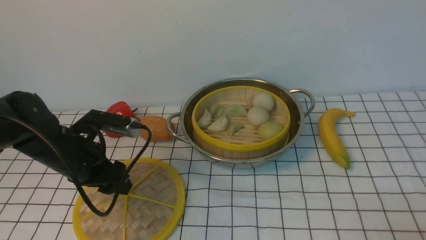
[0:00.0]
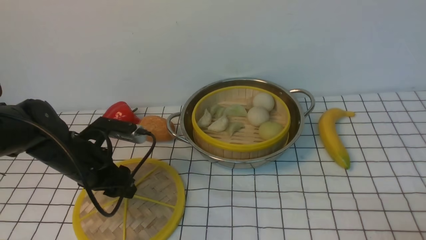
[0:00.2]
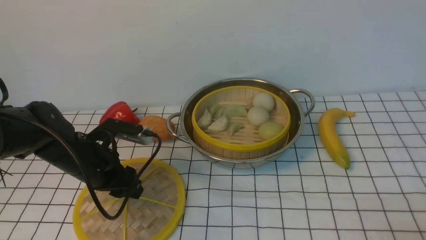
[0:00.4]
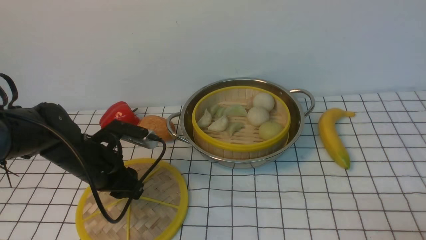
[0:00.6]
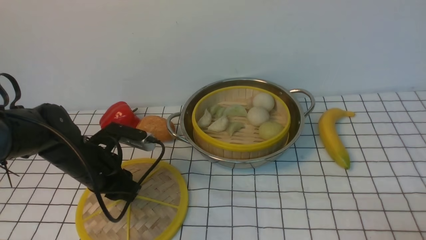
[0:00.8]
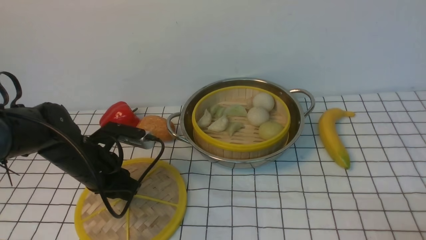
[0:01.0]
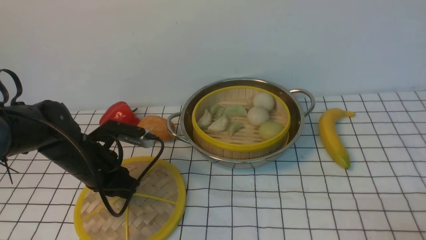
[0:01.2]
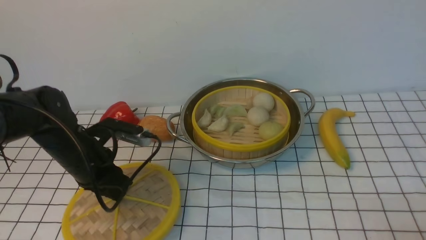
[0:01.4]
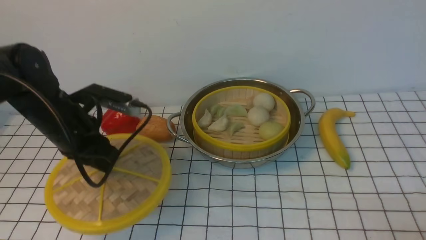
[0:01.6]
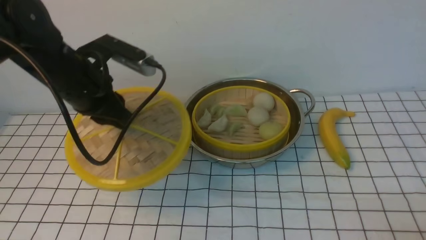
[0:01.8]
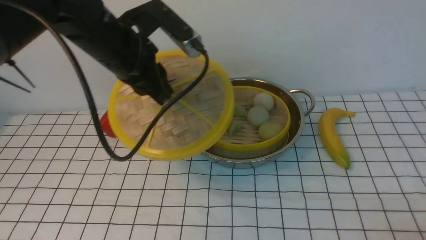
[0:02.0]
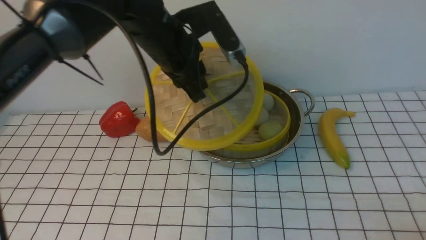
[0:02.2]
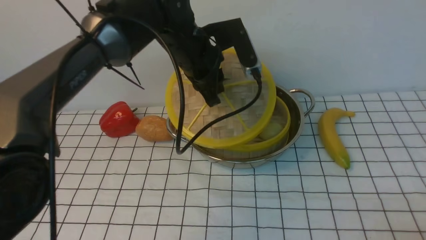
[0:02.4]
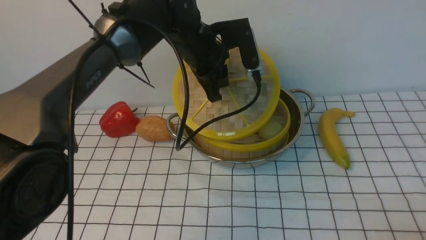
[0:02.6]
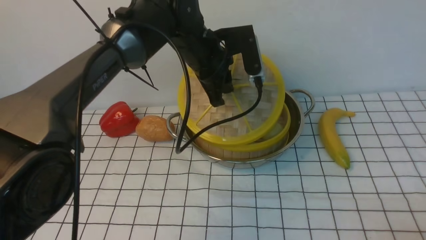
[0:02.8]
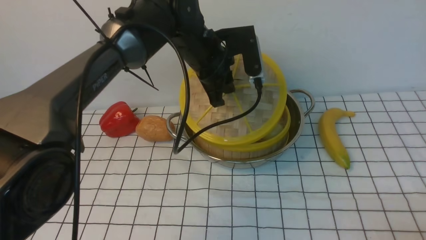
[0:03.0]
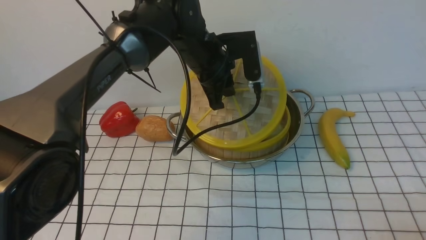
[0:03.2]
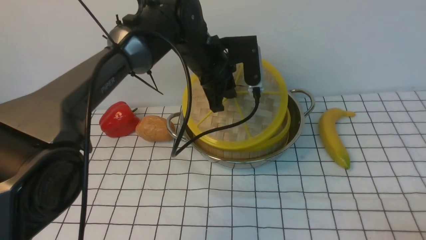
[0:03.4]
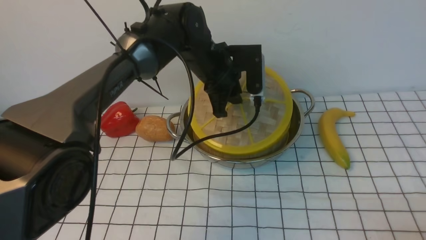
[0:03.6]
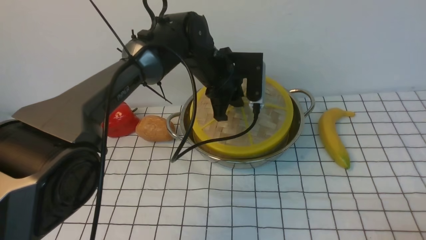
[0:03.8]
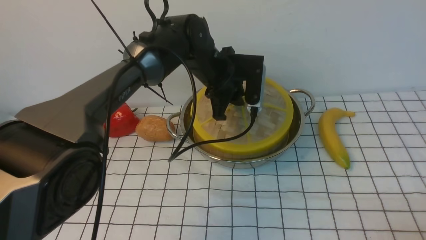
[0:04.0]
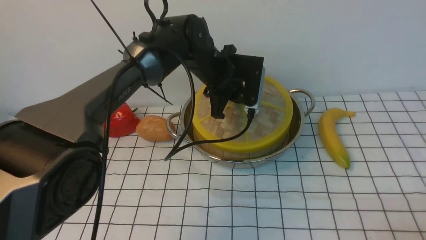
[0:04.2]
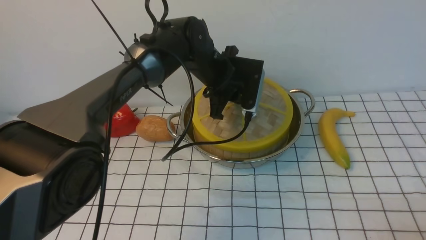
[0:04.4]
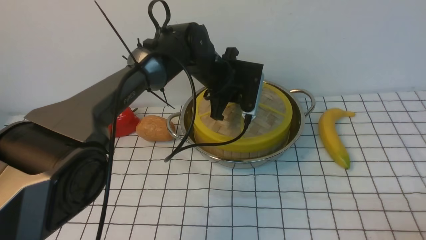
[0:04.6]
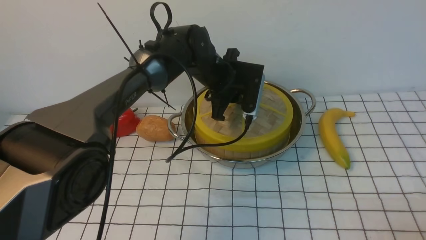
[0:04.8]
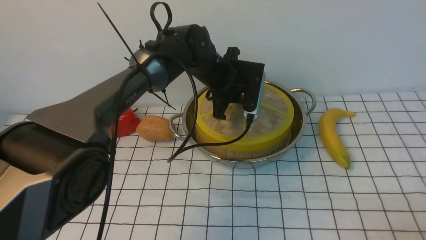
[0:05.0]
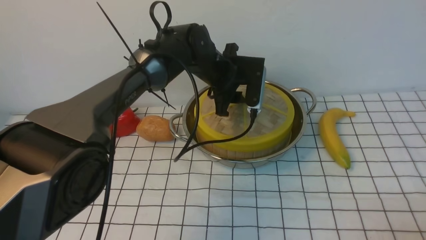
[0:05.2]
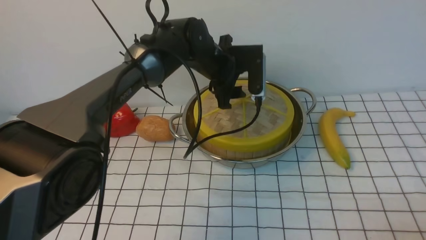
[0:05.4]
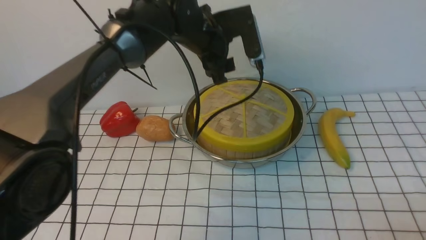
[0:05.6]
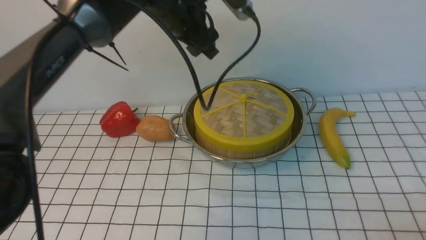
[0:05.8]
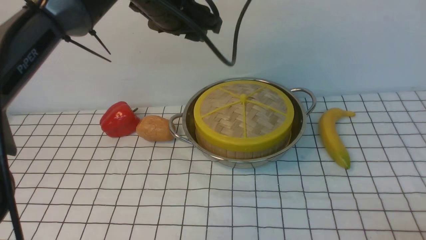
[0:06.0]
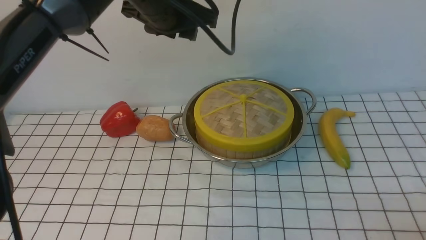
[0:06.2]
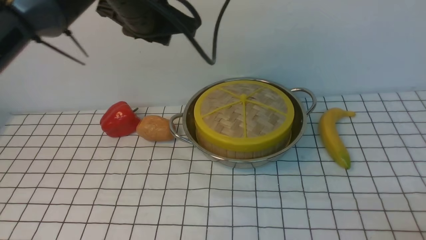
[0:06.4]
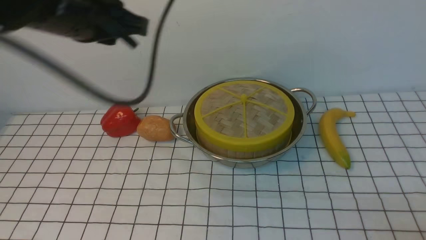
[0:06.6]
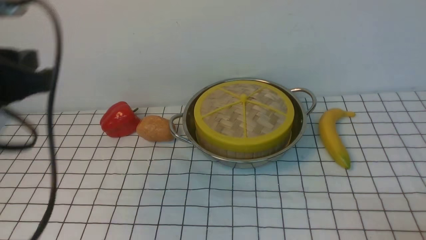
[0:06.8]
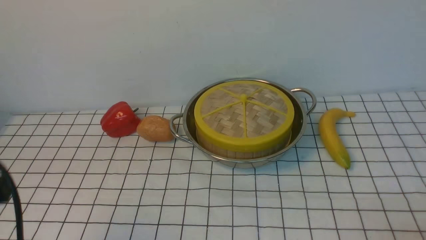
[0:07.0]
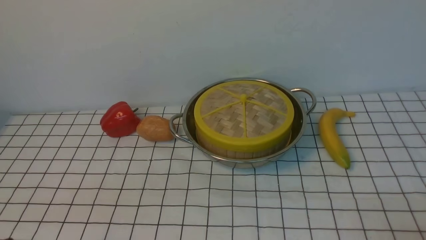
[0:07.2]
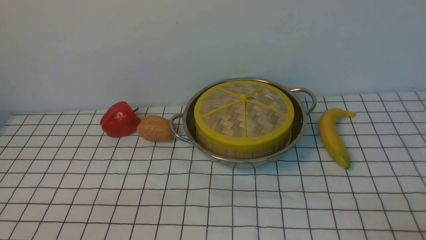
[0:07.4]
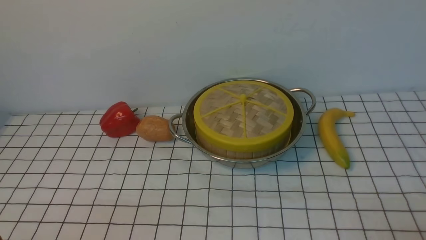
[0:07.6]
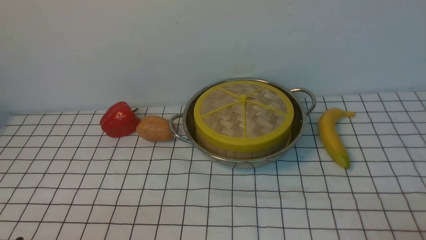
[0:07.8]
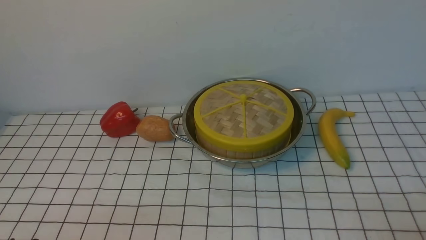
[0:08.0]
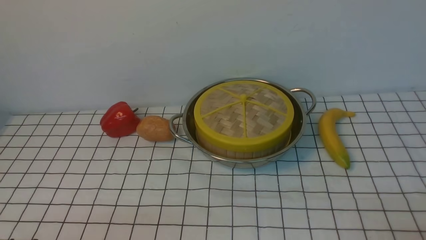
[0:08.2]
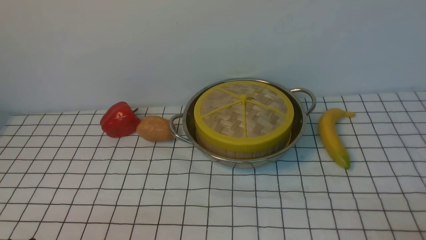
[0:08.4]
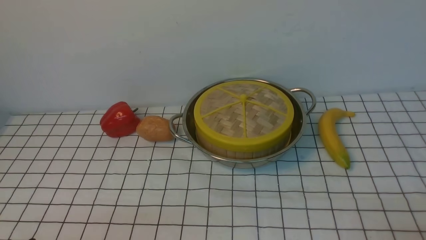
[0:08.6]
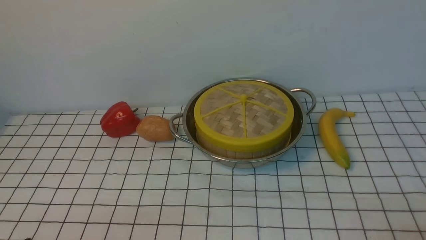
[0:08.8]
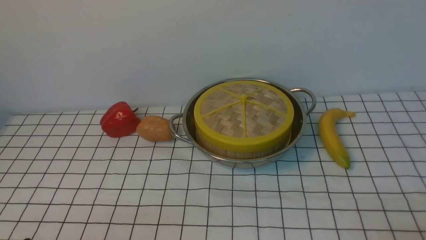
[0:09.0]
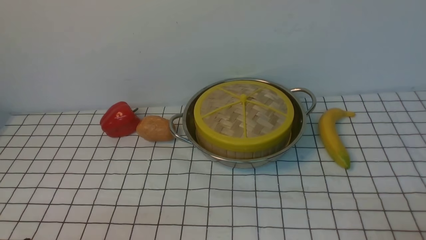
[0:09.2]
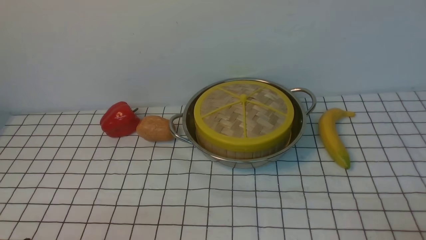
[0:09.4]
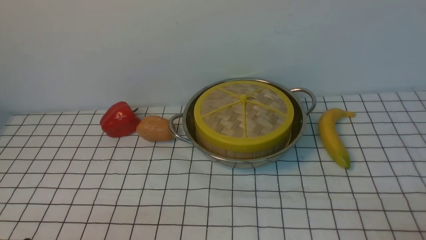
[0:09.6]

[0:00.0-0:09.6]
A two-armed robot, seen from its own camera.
Task of the whole recording: place the steamer in the pot on the white tablecloth, and put the lid on the steamer.
Step, 0:01.6 to 0:05.6: use the left arm to place the steamer lid on the steamer.
0:00.0 to 0:01.6: The left gripper is displaced upward by some 5 cm, and closes its fingers.
0:01.6 to 0:03.2: The left gripper travels to the right and forward by approximately 20 cm.
0:03.2 to 0:04.8: The left gripper travels downward by approximately 5 cm.
0:04.8 to 0:06.4: The left gripper is displaced upward, to the left and backward by roughly 25 cm, and opens and closes again.
0:06.4 to 0:08.0: The left gripper goes about 40 cm backward, downward and to the left.

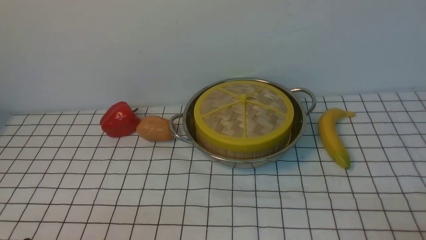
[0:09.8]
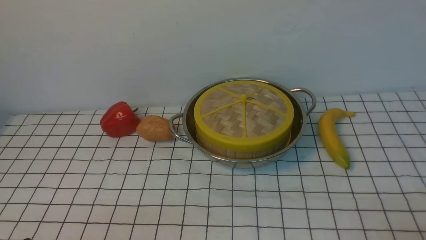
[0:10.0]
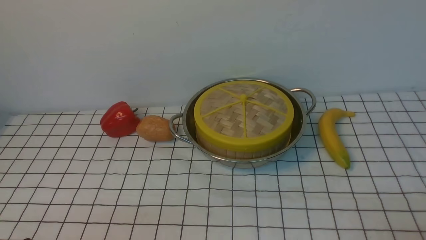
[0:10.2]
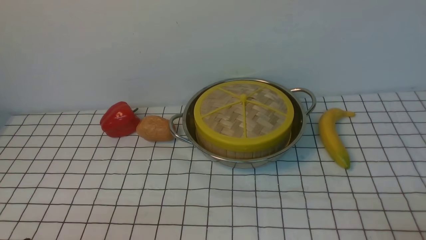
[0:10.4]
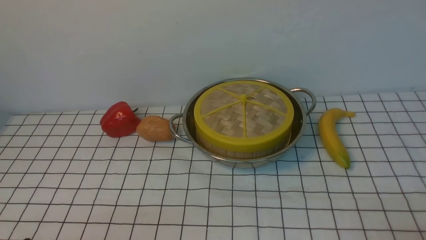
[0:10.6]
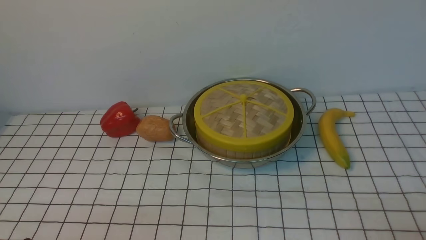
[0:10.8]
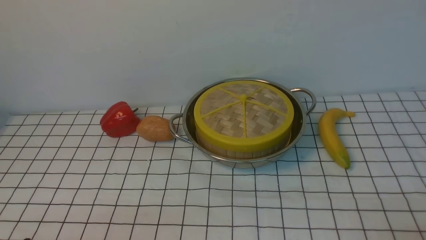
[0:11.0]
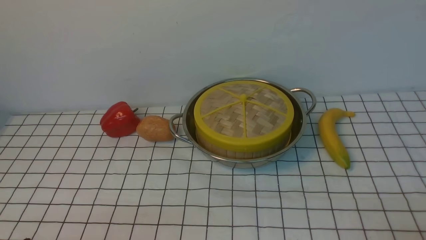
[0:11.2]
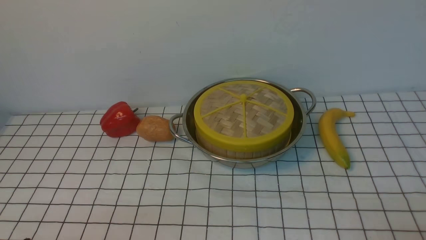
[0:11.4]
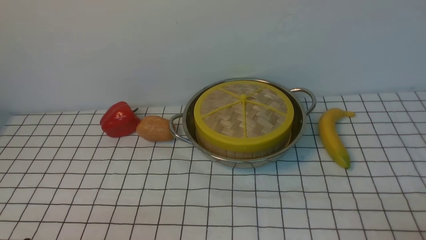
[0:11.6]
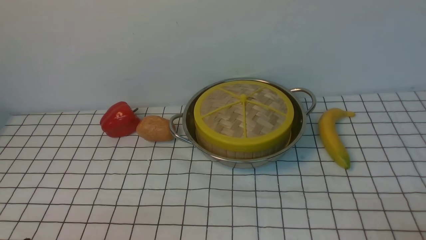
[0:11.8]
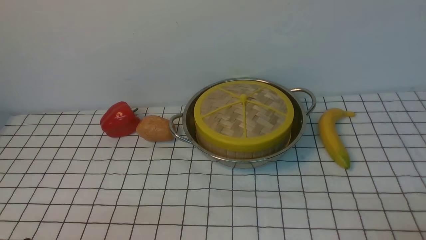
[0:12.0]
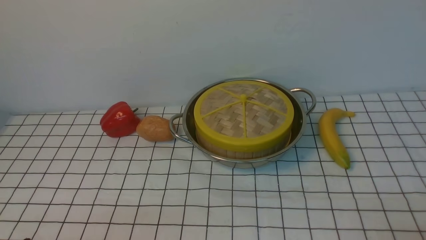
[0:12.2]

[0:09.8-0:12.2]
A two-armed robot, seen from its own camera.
Task of the whole recording: place the steamer in the pot on the white tablecloth, and put the lid on the steamer.
0:09.8 to 0:12.2: Both grippers stay put.

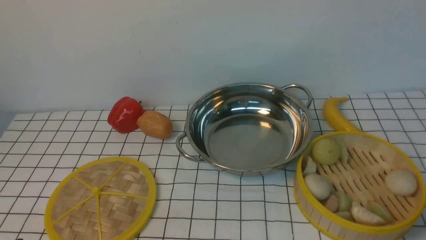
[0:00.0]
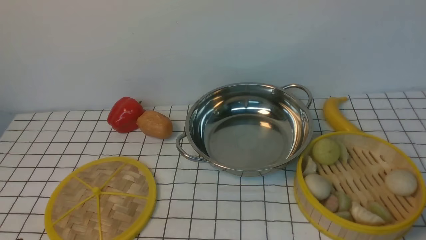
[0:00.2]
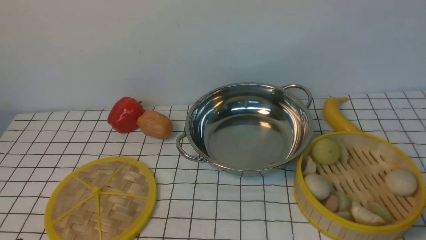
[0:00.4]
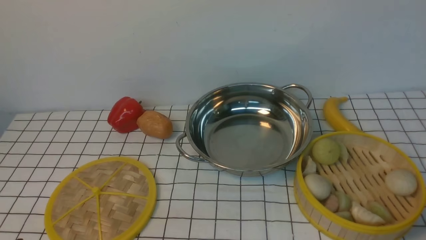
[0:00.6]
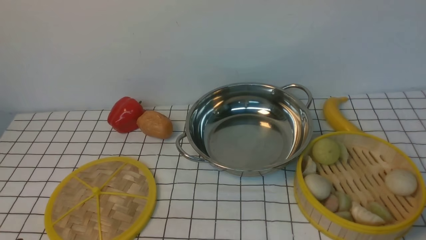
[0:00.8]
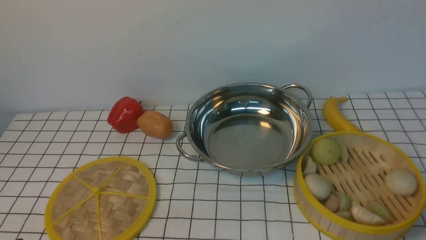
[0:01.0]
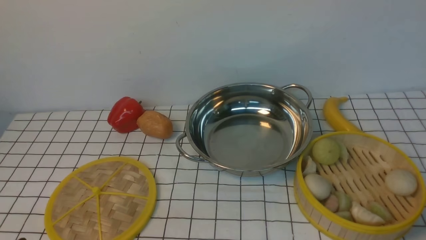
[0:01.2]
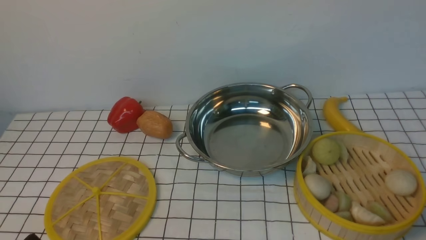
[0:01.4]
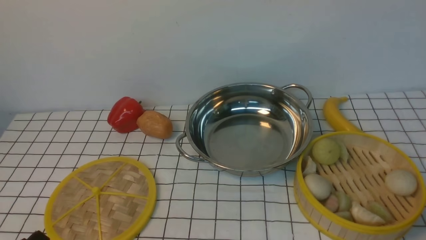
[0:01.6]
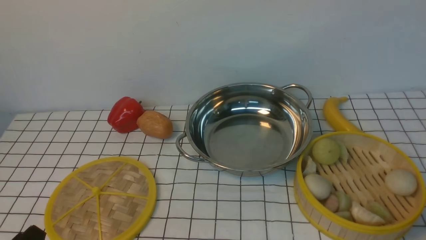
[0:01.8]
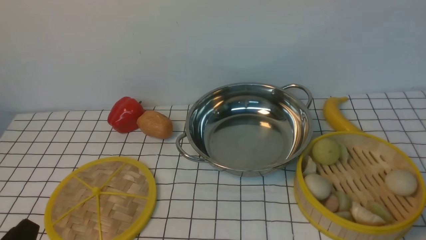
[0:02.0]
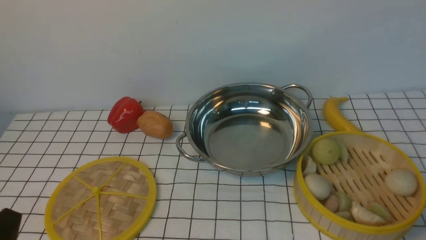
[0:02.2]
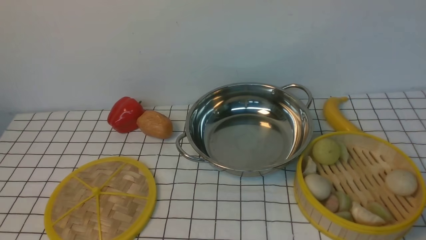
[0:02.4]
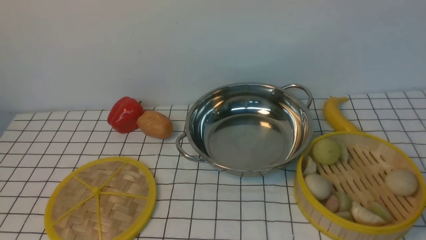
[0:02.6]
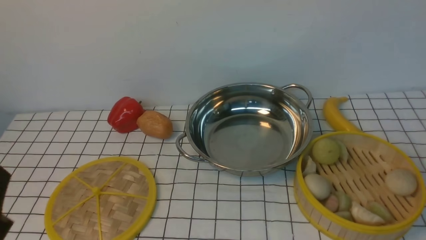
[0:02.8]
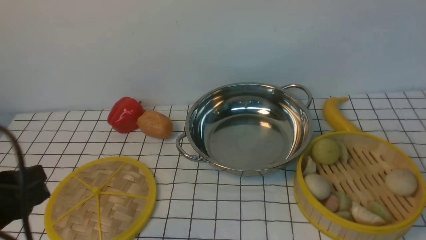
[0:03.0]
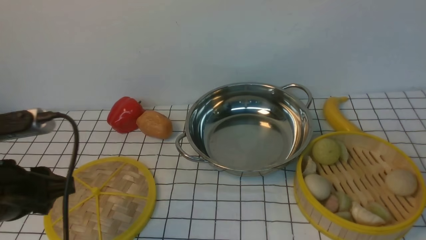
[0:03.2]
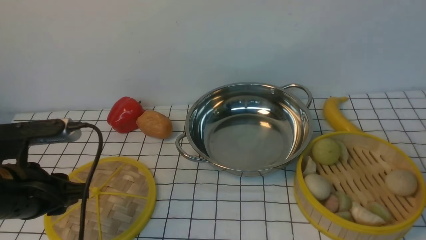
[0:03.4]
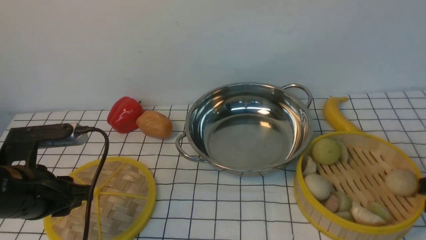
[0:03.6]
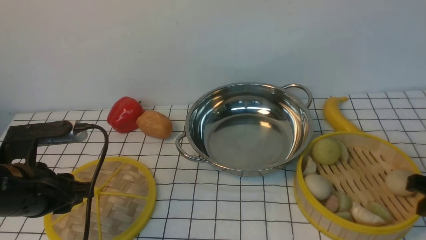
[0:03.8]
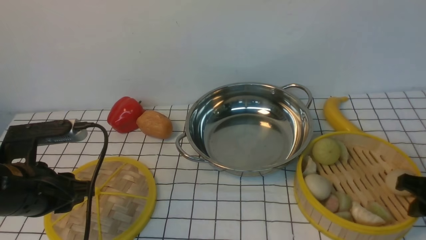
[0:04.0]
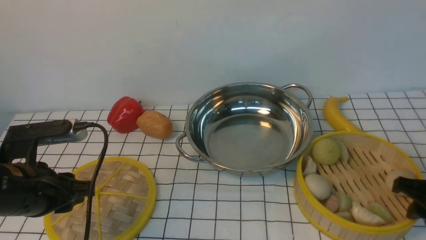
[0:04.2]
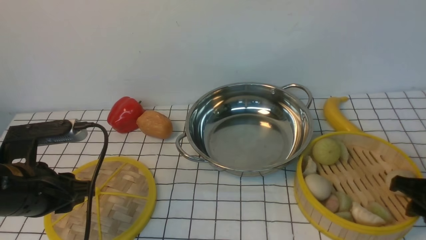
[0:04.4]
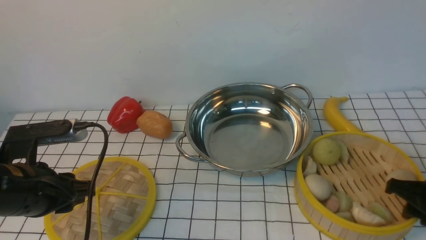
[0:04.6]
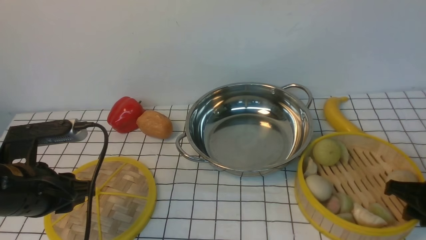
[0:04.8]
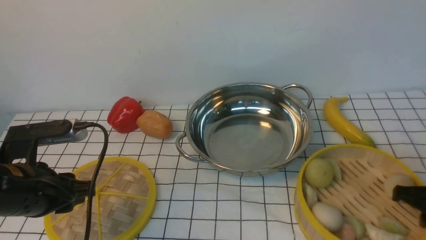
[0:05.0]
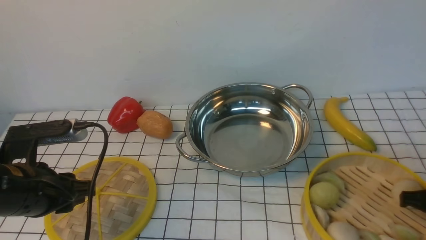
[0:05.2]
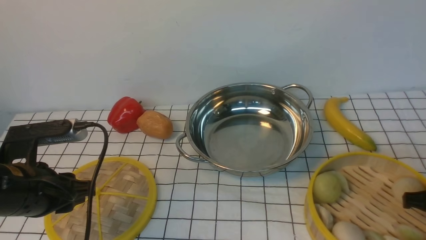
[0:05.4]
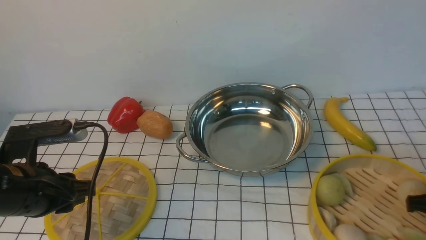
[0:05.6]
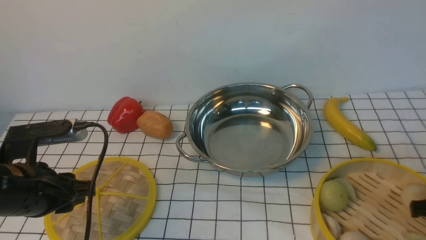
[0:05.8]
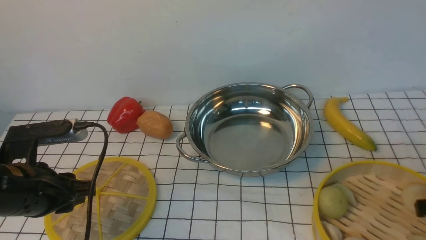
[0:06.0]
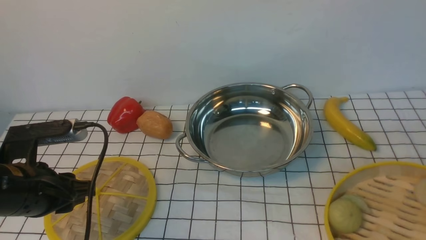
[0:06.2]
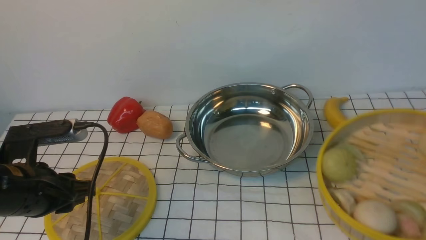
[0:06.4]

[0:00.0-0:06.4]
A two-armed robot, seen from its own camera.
Task of the whole recording: place the steamer in the pot on the white tablecloth, and put the lid on the steamer.
Step, 0:00.0 to 0:06.2: use the right arm to lift the steamer closest to it.
0:01.6 to 0:03.2: The left gripper is displaced forward and upward by some 15 cm.
0:03.2 to 0:04.8: The right gripper is displaced downward and forward by some 15 cm. The left gripper moves about 5 cm.
0:04.8 to 0:06.4: The right gripper travels upward by roughly 15 cm.
